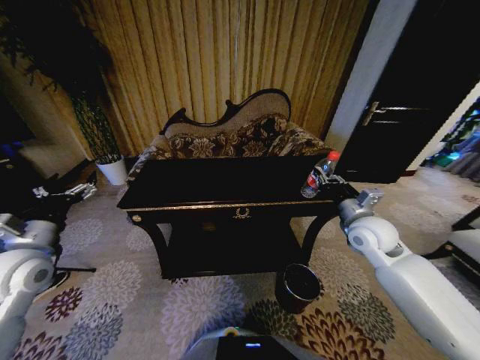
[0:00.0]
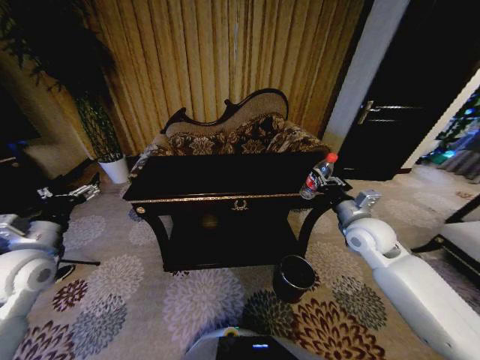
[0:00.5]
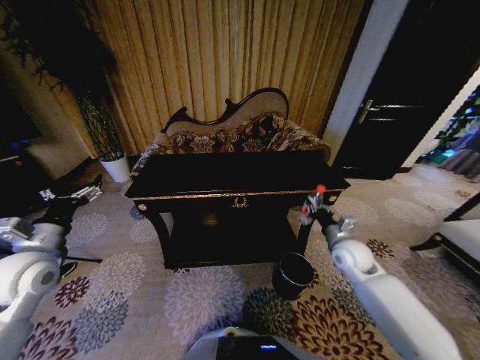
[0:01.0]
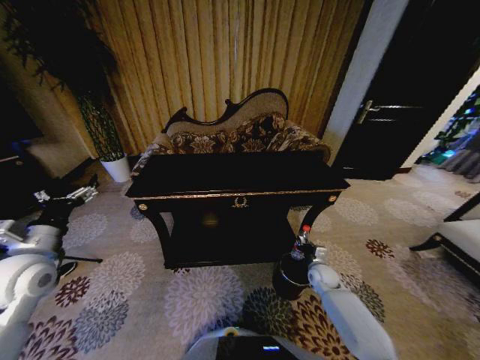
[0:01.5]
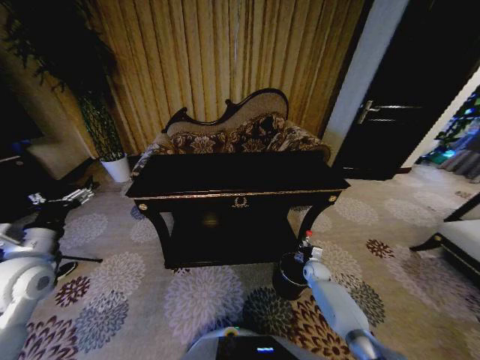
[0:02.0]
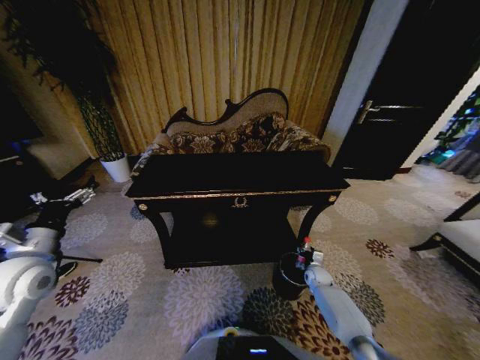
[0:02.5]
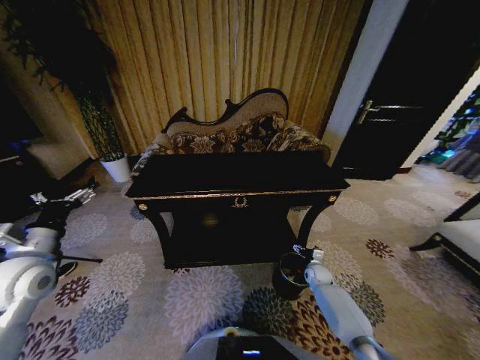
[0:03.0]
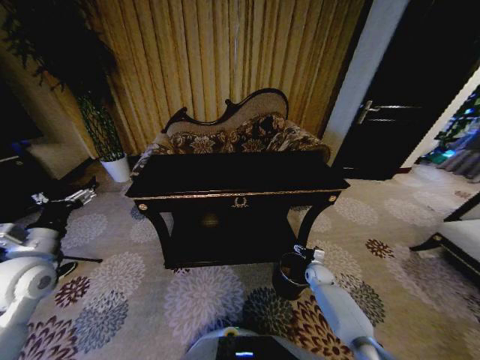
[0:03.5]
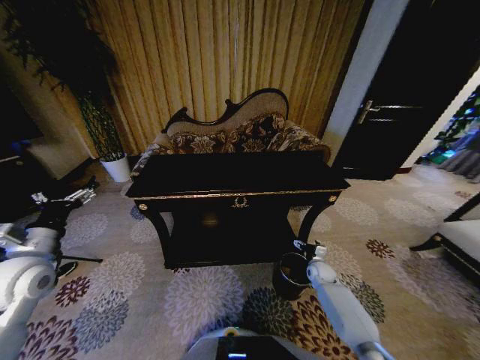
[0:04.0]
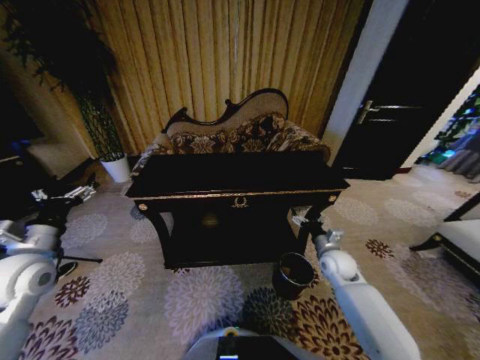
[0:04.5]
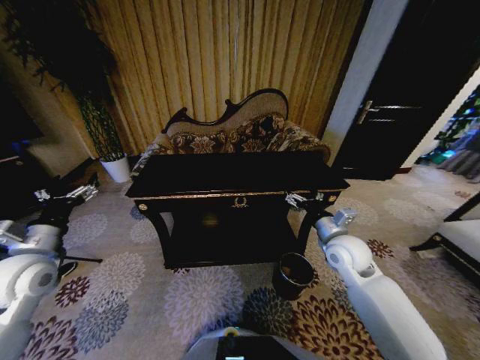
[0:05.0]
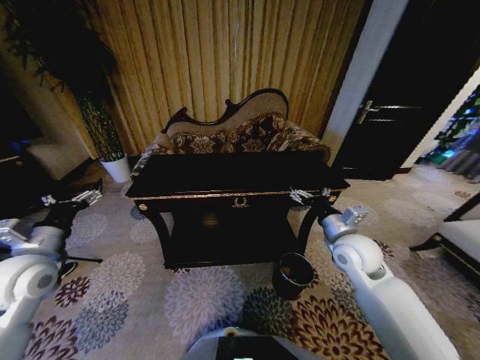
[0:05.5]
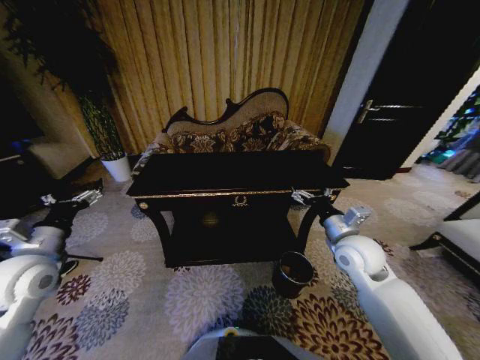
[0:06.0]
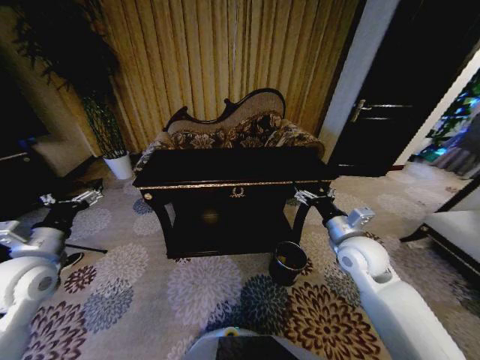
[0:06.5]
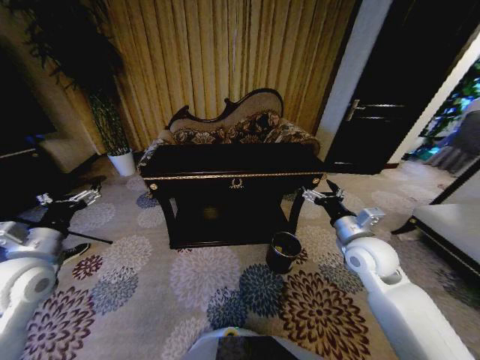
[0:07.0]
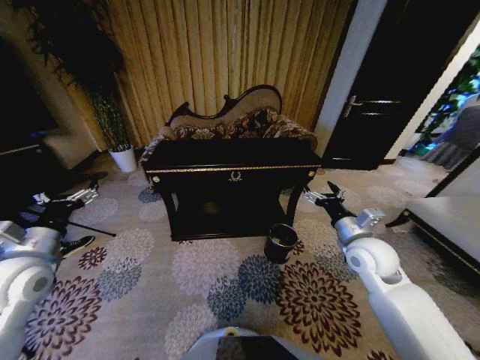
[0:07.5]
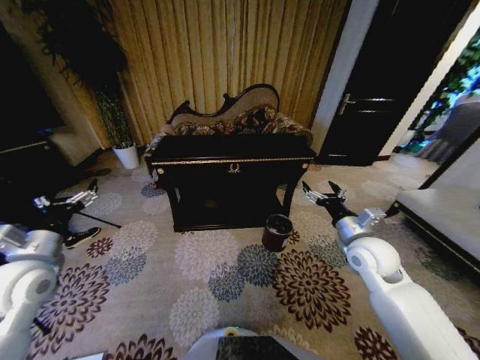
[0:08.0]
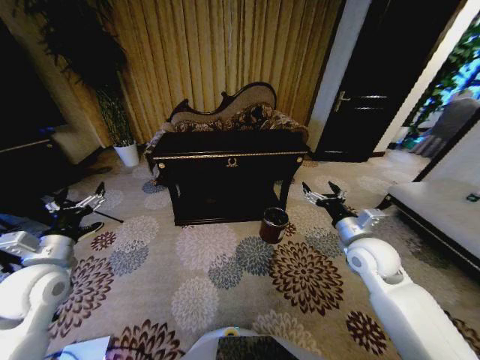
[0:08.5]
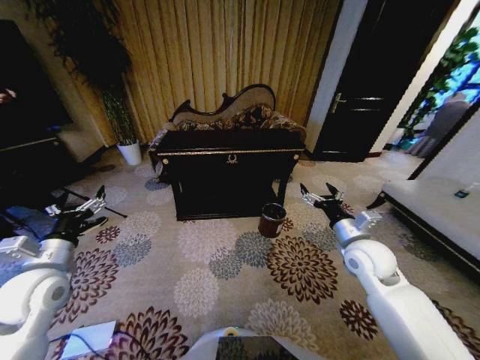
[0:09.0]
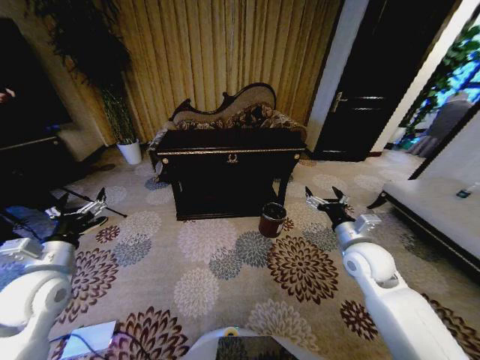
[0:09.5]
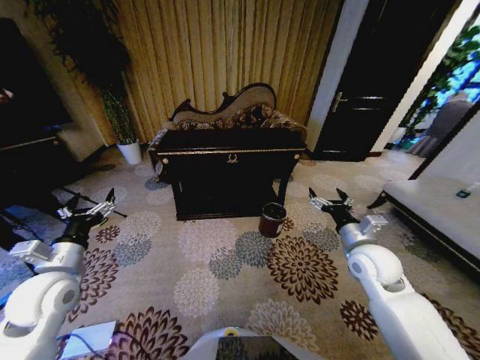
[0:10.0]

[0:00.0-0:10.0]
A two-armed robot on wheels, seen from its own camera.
Task of the whole recording: Move to the front of the table and place the trash on the table into the trash bin.
0:00.0 to 0:02.0: The right gripper travels downward by approximately 35 cm.
0:02.0 to 0:04.0: The right gripper opens.
0:04.0 to 0:06.0: The right gripper goes about 30 cm upward.
0:08.0 to 0:10.0: The left gripper ends up some 5 cm from where it was.

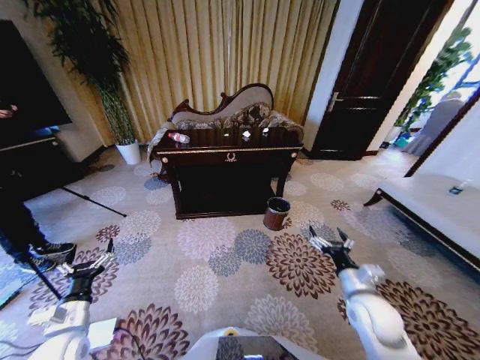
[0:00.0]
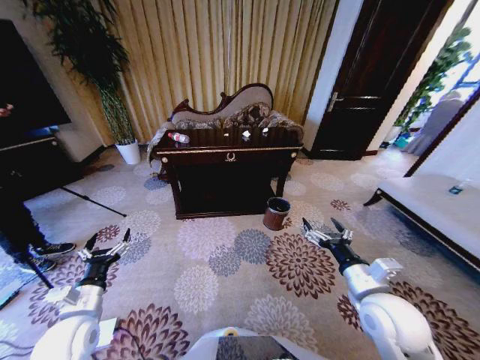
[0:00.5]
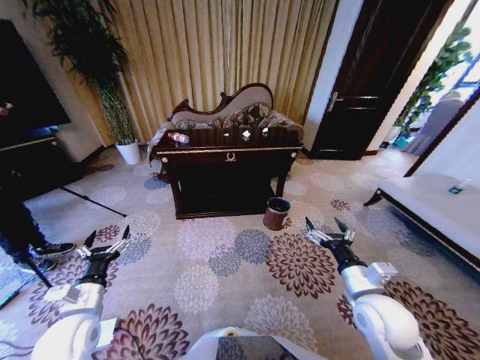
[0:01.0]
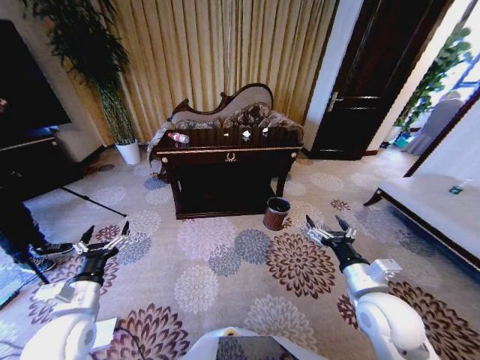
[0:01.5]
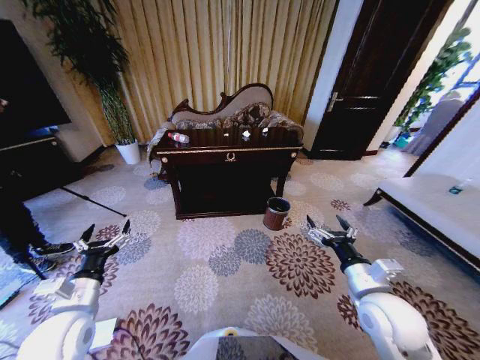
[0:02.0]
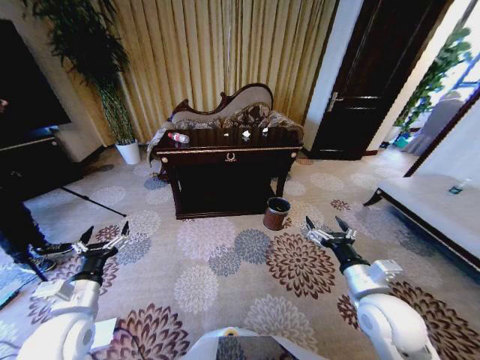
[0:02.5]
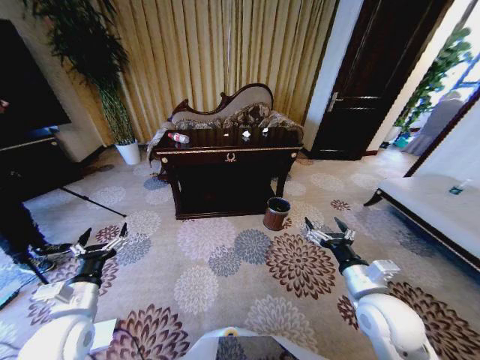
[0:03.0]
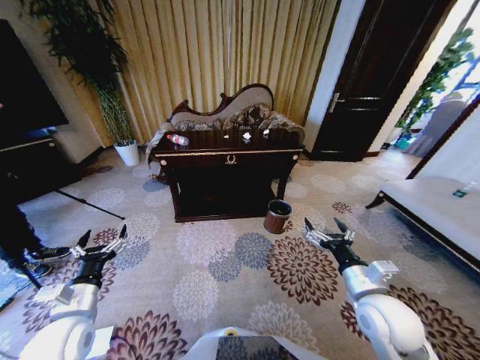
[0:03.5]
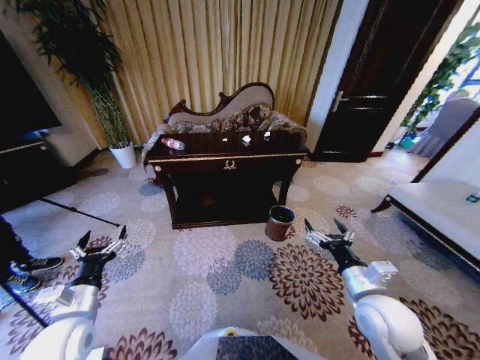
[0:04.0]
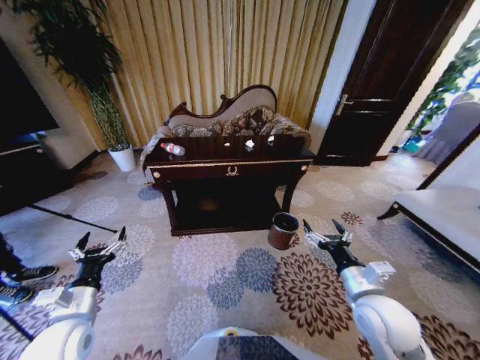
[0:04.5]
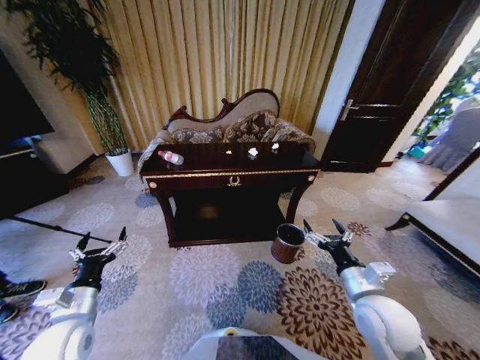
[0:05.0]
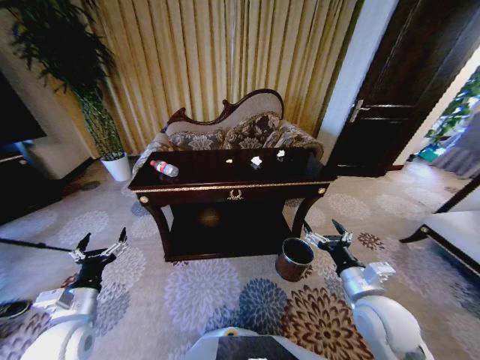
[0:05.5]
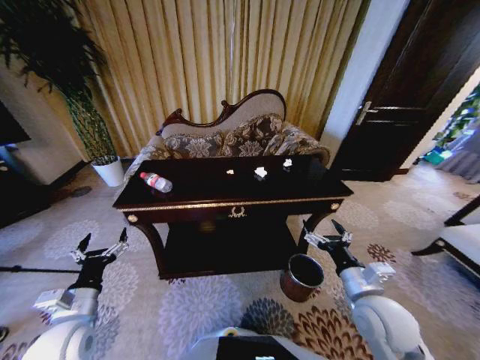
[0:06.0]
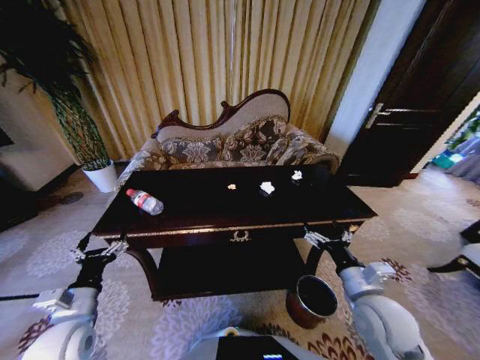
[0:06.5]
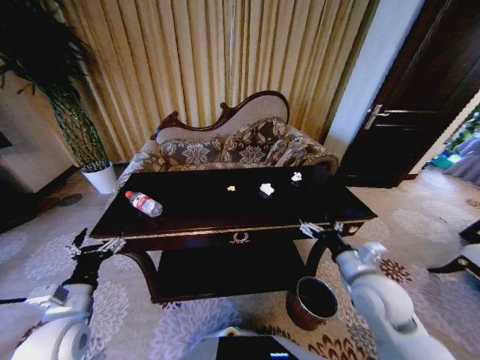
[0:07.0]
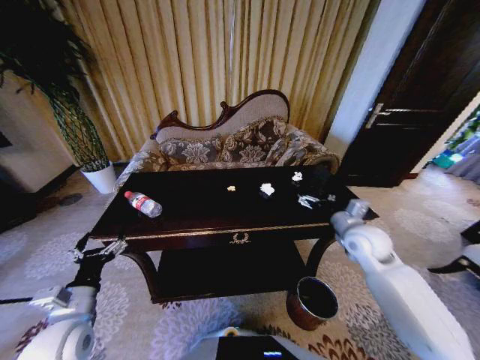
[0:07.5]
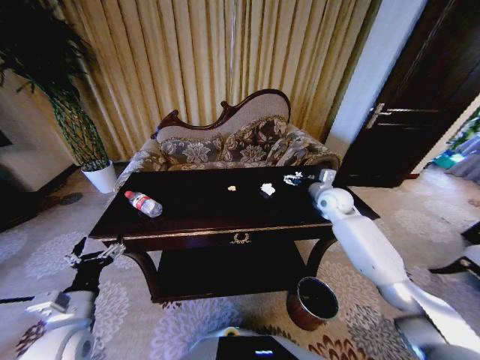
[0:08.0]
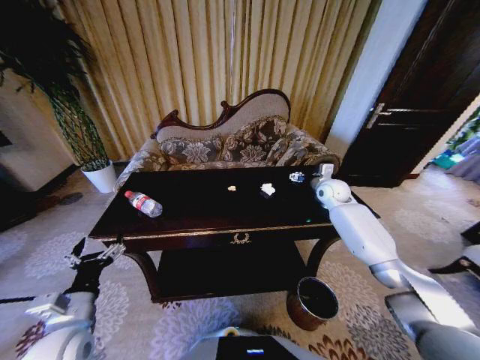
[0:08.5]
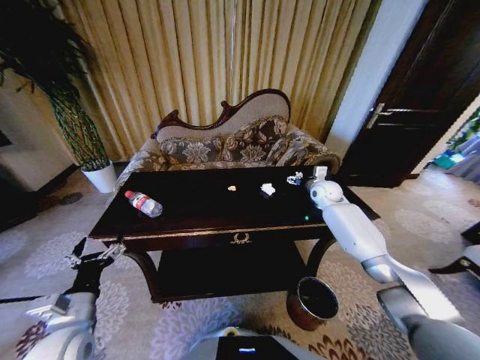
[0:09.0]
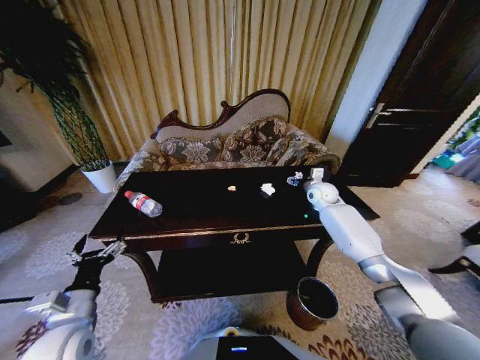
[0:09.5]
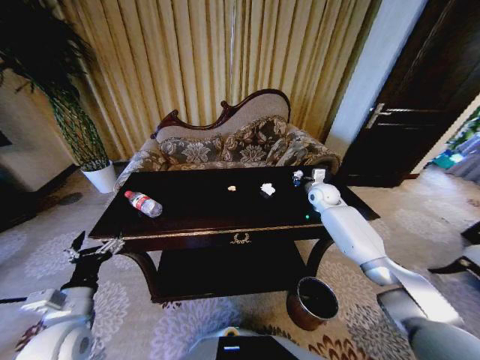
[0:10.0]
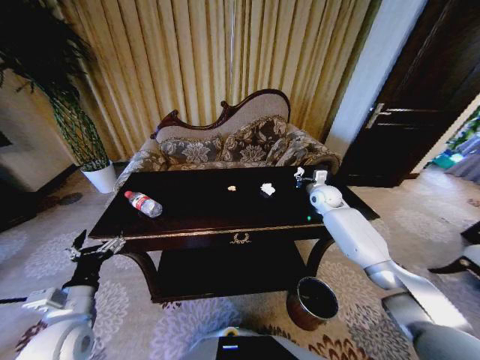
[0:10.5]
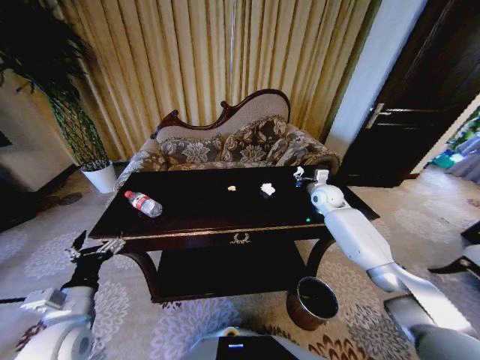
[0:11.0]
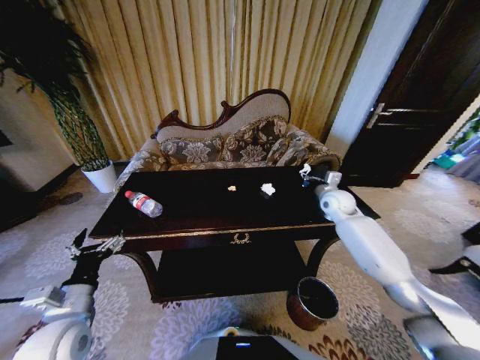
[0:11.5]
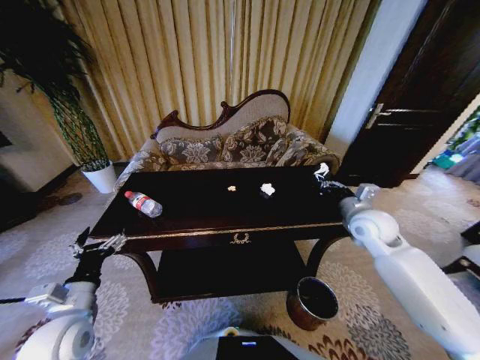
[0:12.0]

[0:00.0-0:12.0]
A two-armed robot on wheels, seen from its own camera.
Task of the whole recording: Move to the front of the table and place the trash on the table into the trash bin.
0:06.0 to 0:08.0: The right gripper travels forward by roughly 30 cm.
0:08.0 to 0:10.0: The right gripper goes some 5 cm forward, and closes.
0:10.0 to 0:12.0: The right gripper goes some 20 cm backward, and closes up.

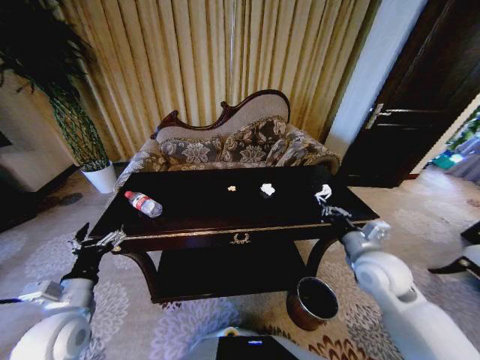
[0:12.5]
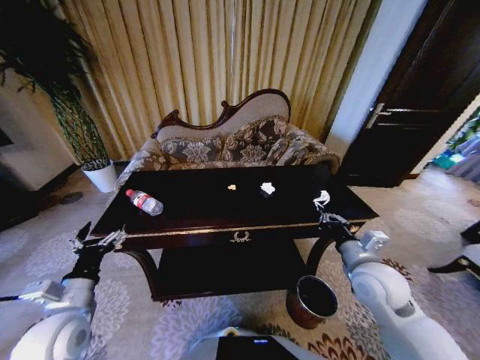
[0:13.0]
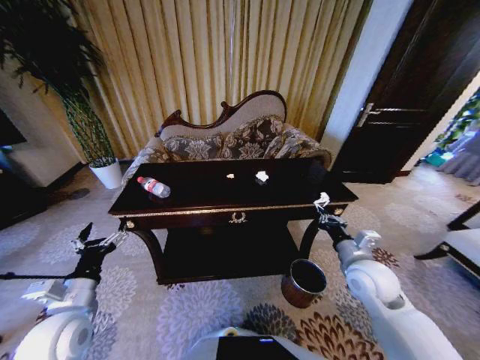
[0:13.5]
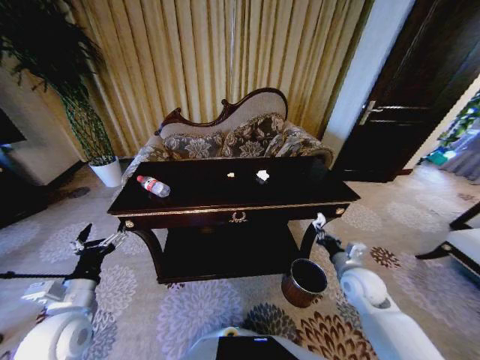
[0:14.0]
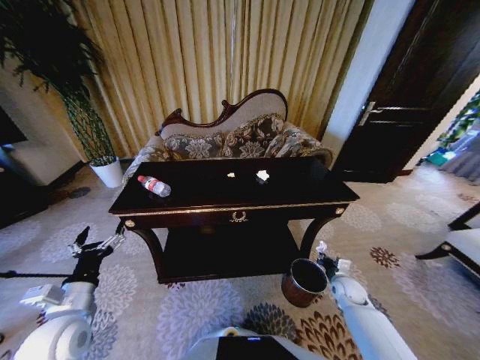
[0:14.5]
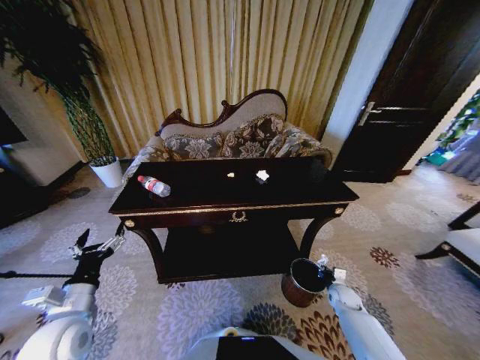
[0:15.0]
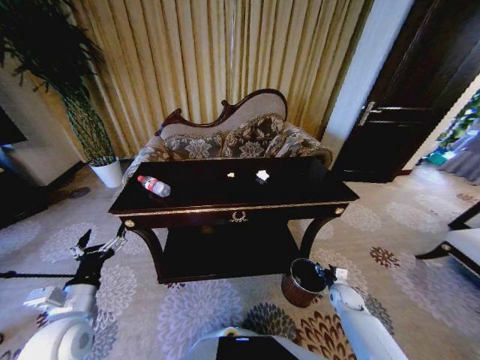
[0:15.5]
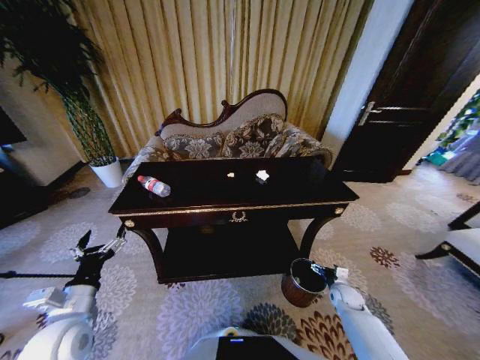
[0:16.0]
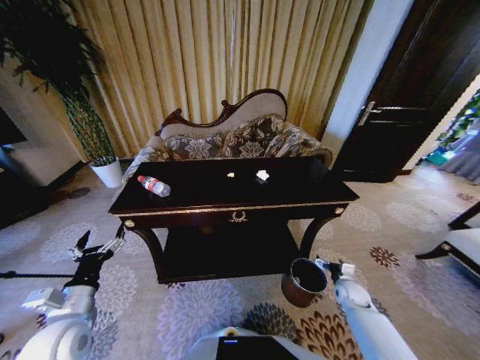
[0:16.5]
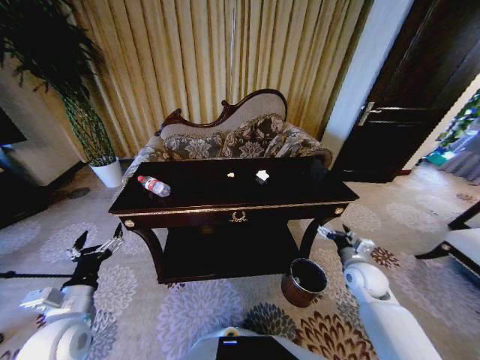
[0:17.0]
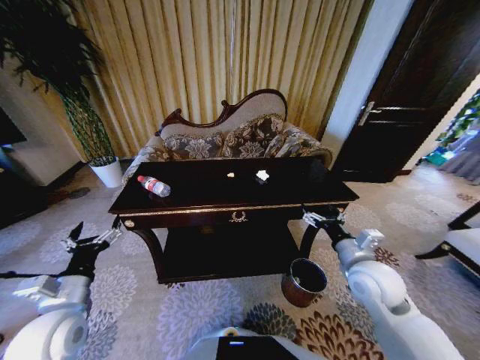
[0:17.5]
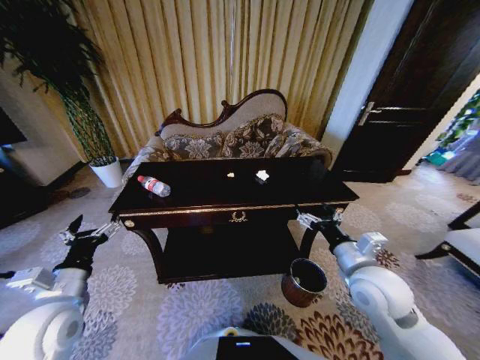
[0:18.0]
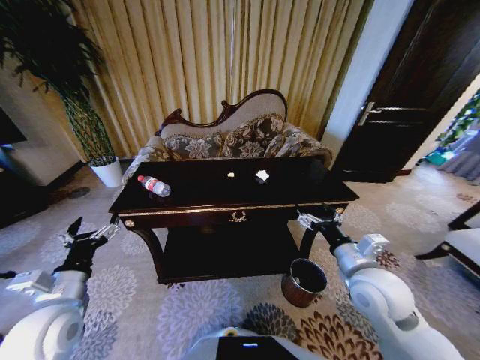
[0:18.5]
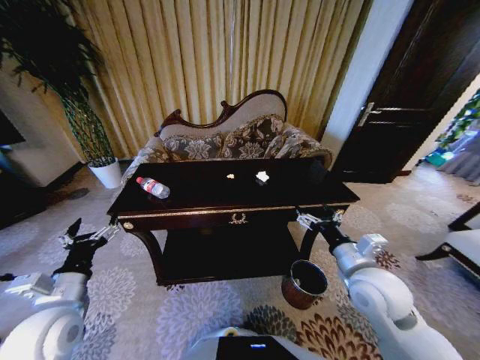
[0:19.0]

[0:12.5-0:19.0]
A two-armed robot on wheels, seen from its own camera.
Task of the whole recording: Move to the front of the table and place the trash on the table into the trash bin.
0:12.5 to 0:14.5: The right gripper goes about 25 cm downward.
0:14.5 to 0:17.0: The right gripper moves upward, approximately 15 cm, and opens up.
0:17.0 to 0:19.0: The right gripper goes approximately 15 cm upward, to the left and backward.
